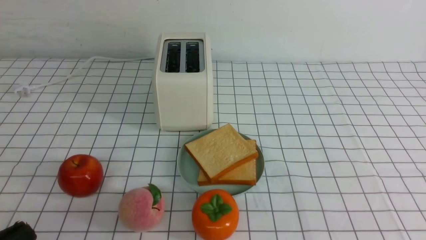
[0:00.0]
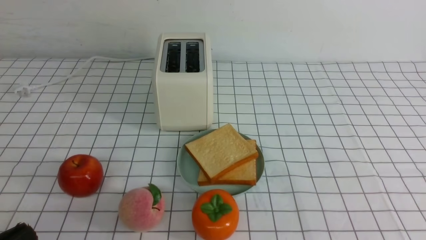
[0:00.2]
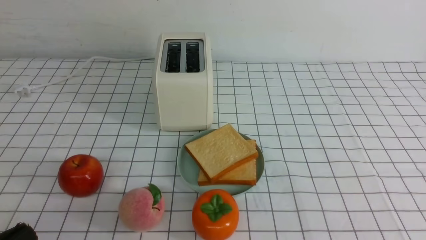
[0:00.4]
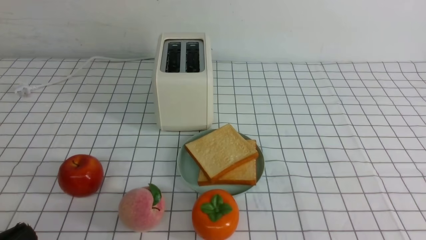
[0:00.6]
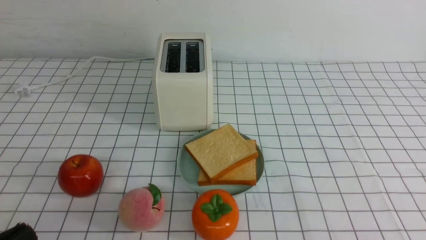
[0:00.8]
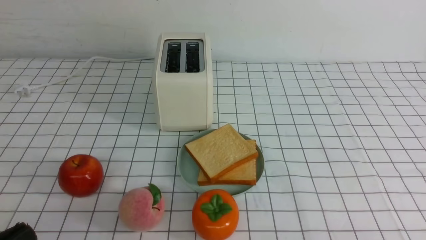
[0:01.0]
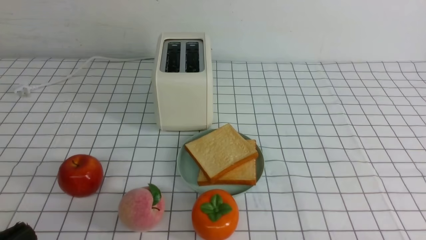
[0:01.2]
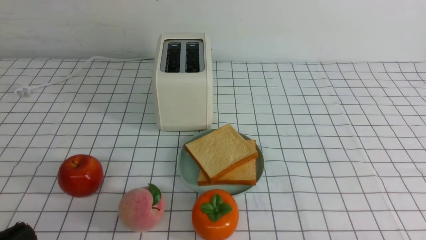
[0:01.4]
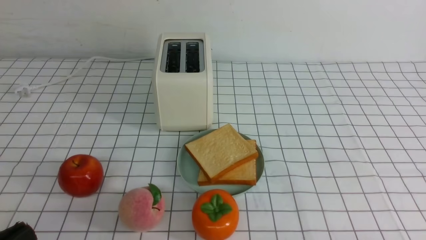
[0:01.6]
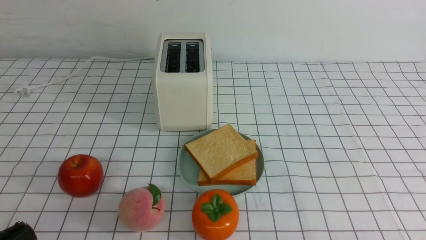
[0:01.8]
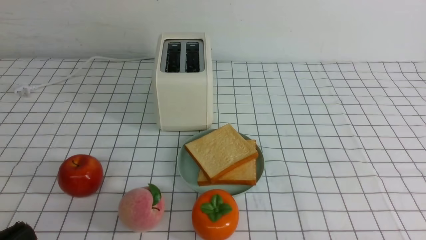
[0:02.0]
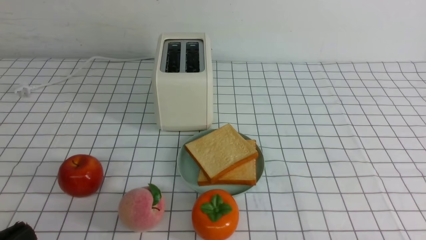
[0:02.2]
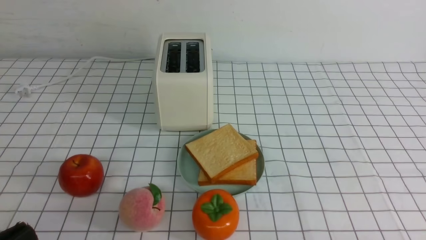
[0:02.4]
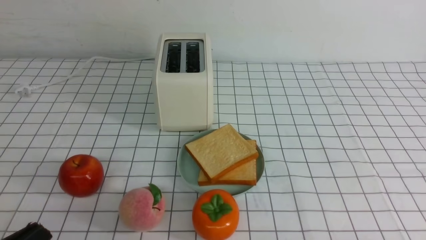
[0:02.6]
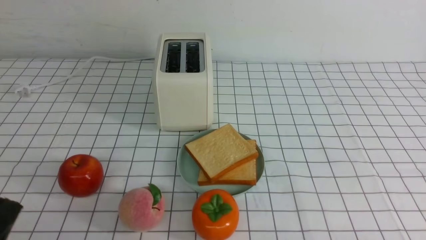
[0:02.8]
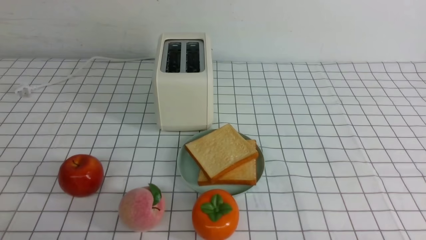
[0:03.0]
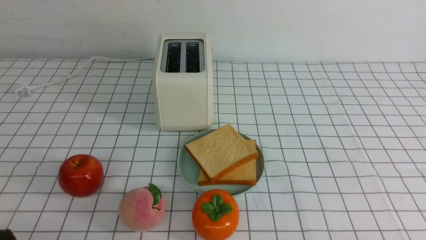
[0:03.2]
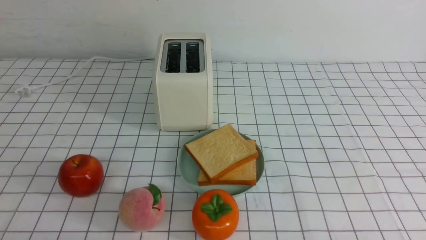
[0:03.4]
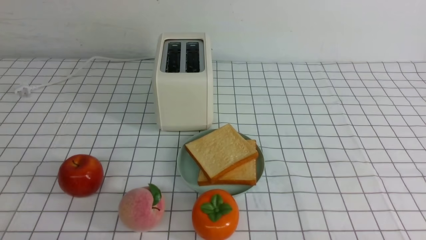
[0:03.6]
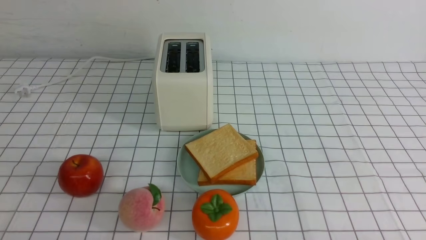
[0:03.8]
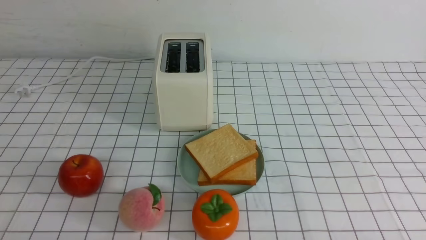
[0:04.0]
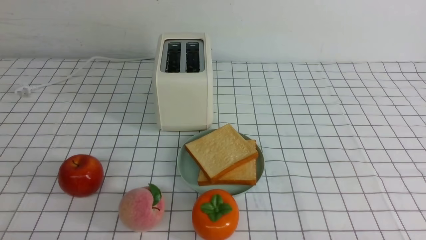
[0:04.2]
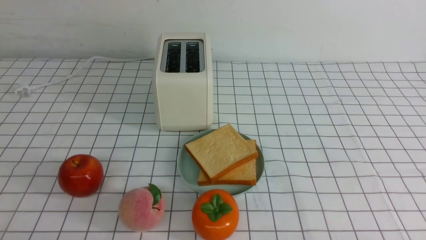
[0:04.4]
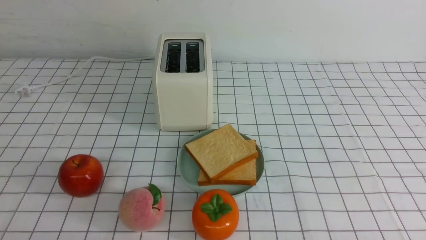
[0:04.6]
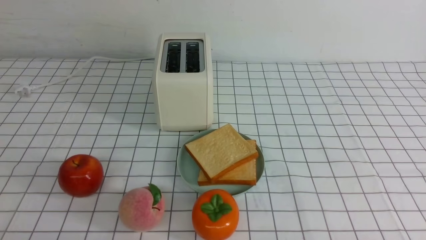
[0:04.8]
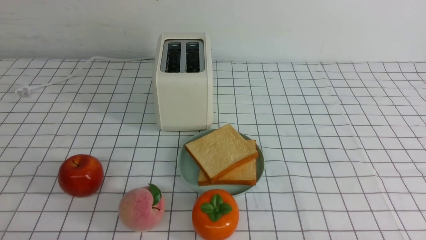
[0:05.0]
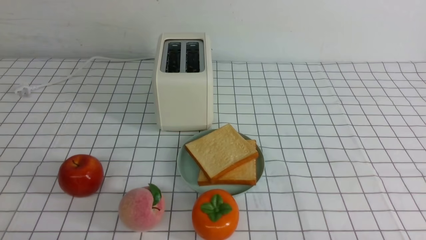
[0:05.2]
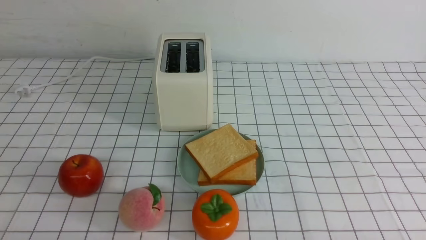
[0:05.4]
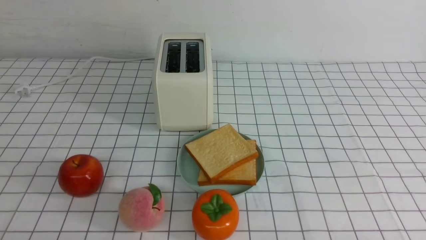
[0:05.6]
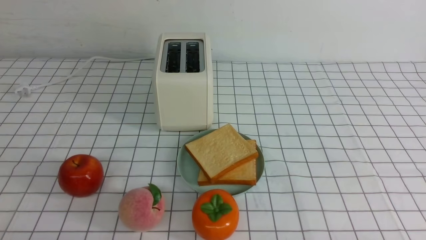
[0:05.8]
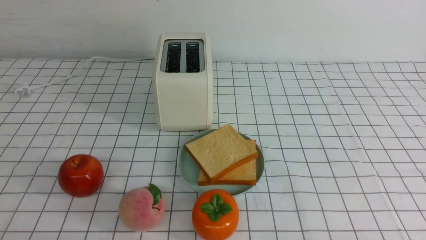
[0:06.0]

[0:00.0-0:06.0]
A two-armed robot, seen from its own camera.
Task of the whole recording: take toasted bread from bread machine on white checkered table place on plate.
0:04.4 to 0:06.0: The two grippers keep their place.
